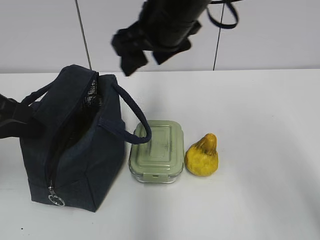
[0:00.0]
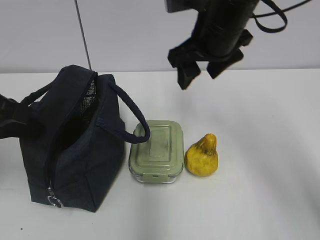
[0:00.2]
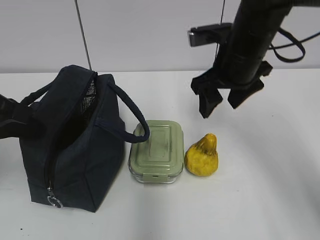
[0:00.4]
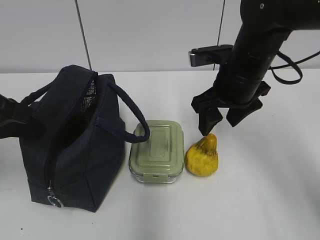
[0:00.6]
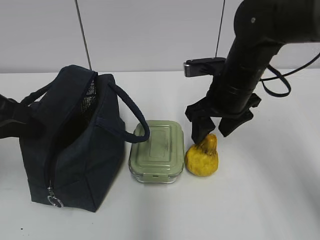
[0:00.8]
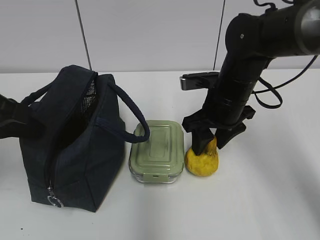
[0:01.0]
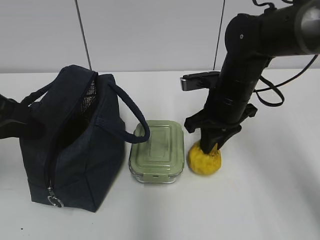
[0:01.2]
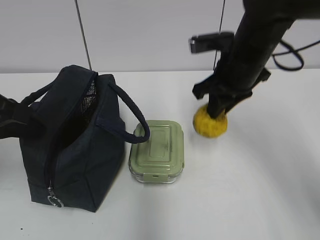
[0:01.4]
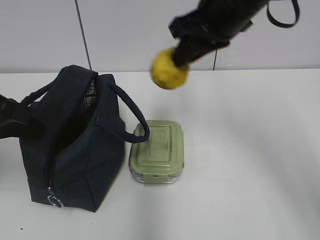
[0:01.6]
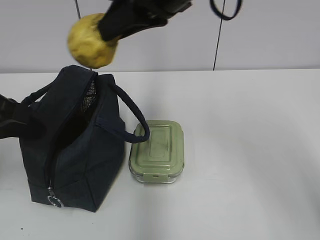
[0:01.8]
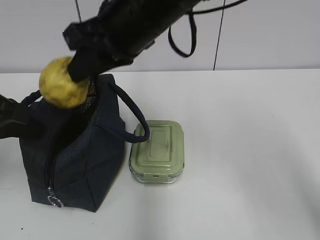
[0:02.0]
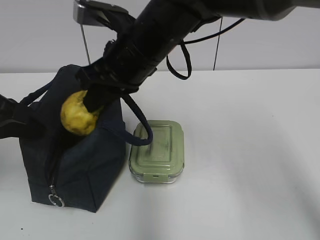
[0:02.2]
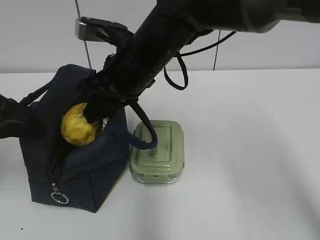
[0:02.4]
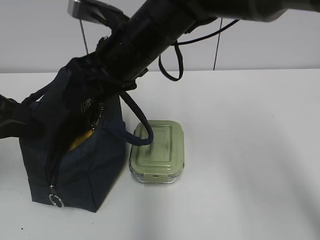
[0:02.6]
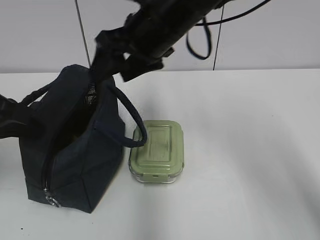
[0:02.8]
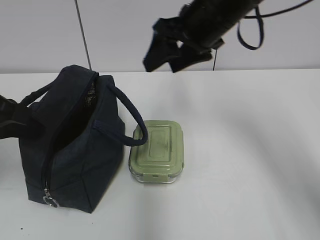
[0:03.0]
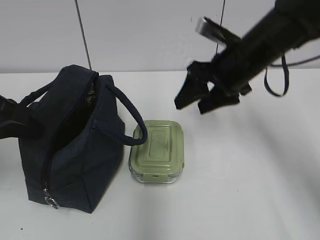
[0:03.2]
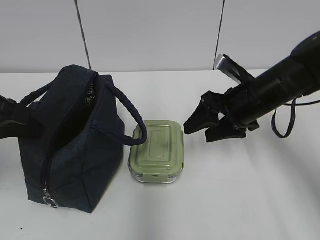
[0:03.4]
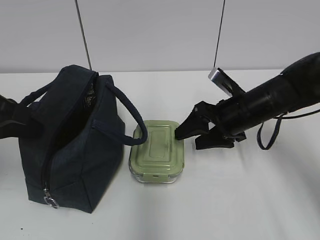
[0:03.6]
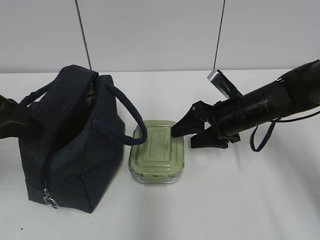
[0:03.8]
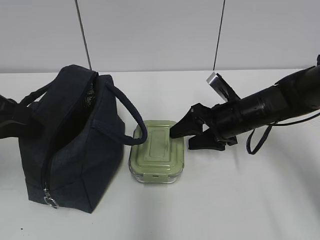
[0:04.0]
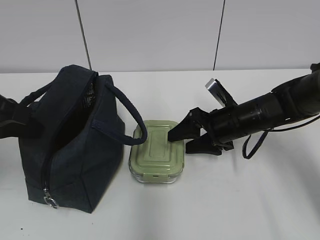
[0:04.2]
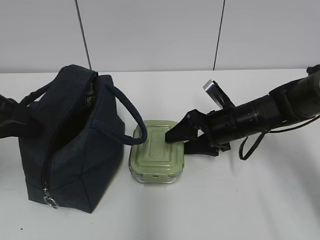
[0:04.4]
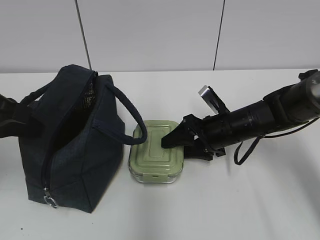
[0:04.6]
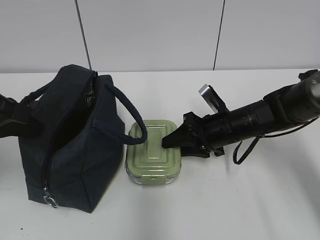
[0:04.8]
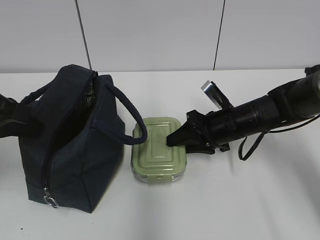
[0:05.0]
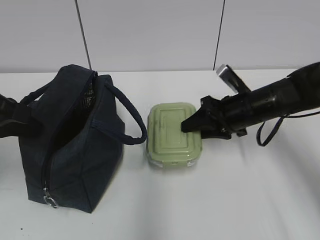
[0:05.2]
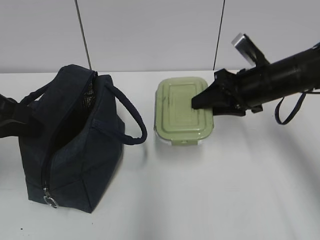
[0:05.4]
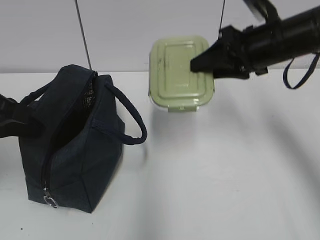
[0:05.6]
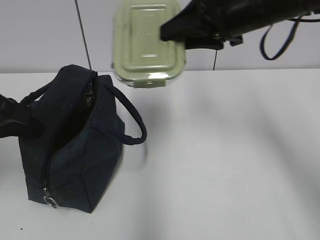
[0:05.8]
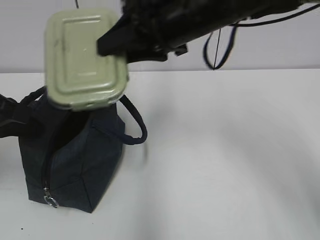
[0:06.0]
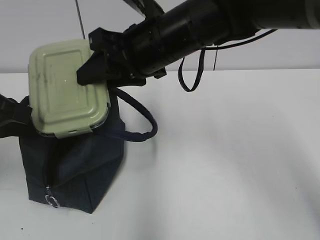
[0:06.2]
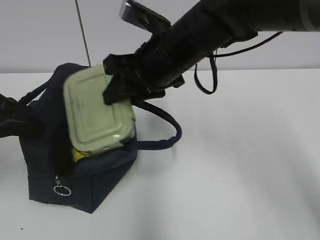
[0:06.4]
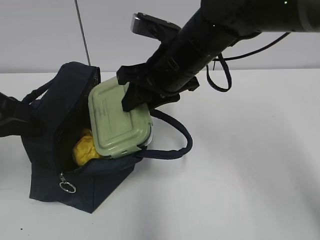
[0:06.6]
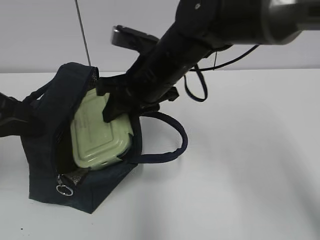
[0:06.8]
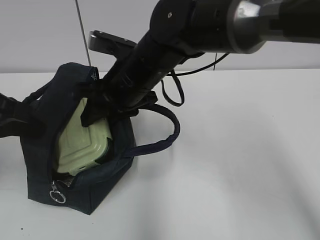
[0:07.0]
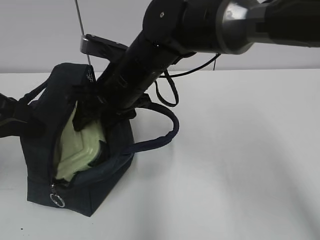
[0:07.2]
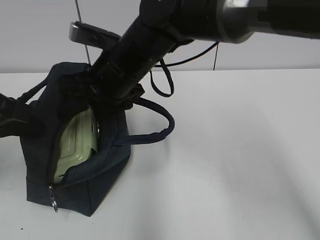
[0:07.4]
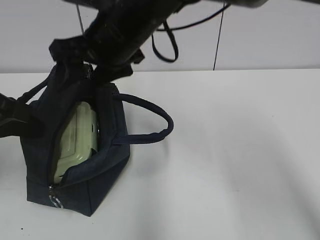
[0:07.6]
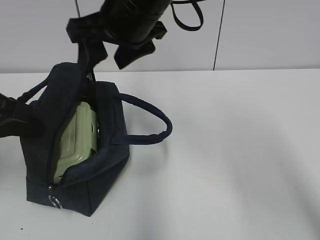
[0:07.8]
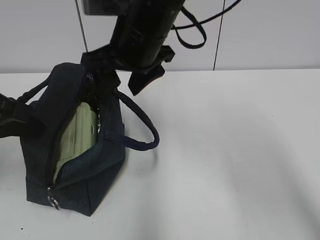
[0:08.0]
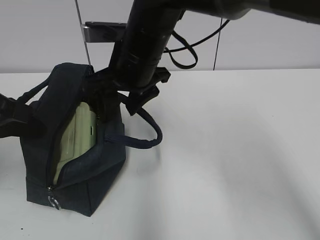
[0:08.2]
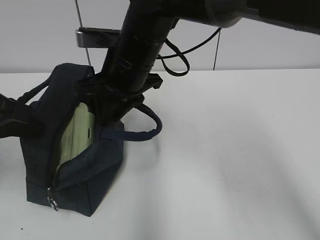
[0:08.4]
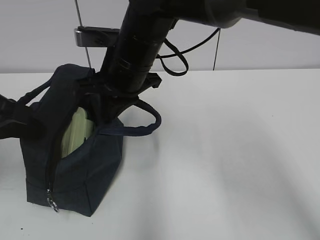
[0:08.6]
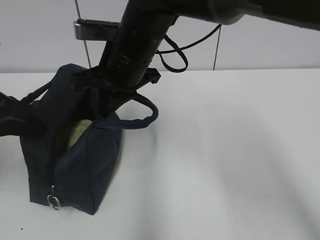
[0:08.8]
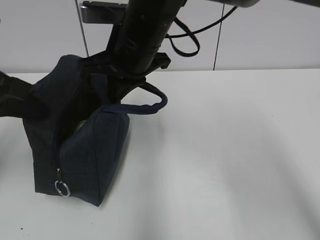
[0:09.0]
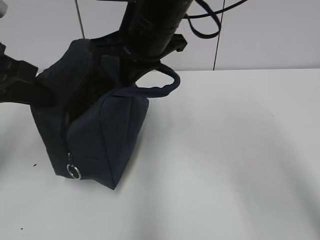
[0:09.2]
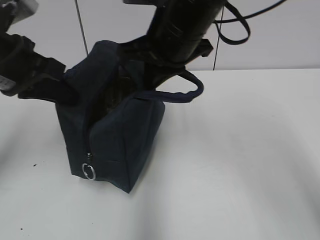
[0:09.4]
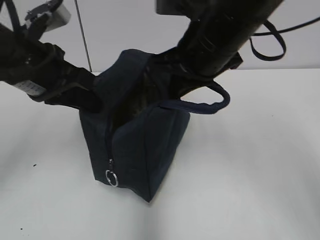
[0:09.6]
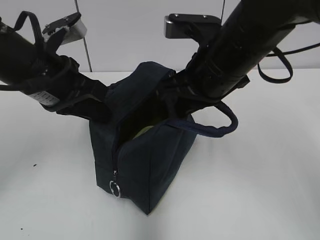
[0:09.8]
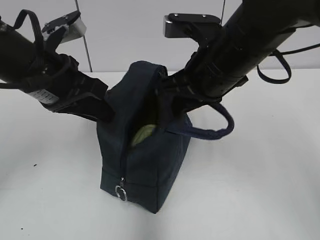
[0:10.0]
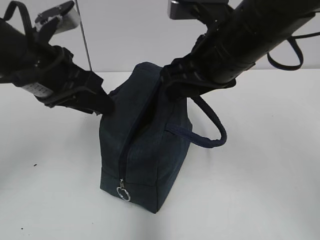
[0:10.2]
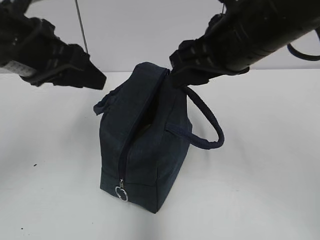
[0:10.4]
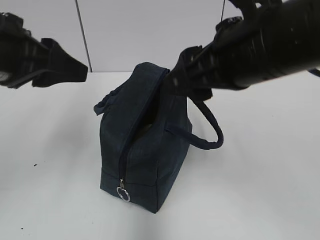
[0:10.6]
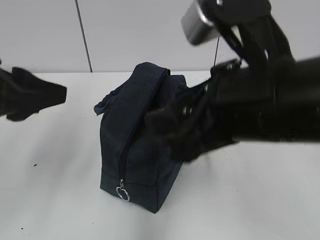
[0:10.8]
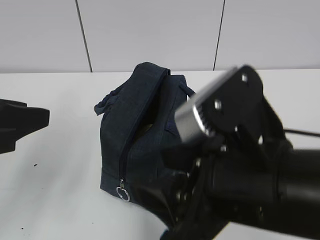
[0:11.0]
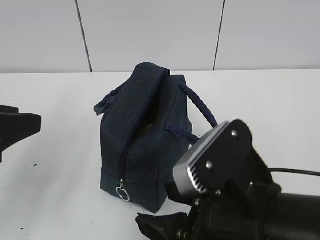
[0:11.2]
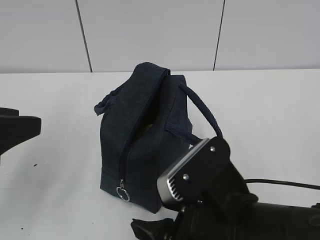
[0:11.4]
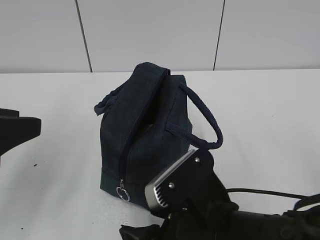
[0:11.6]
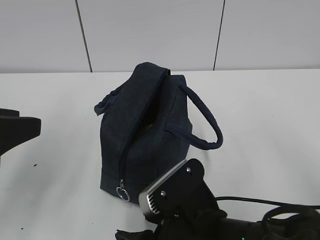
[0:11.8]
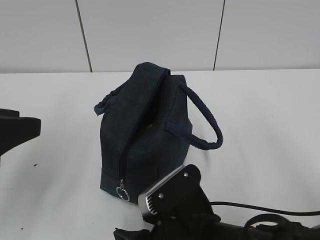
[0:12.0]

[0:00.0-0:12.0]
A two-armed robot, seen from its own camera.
0:00.0 to 0:01.6: The right gripper goes downward and returns, about 15 cm each way, and closes up.
0:01.6 to 0:03.0: The right gripper travels downward by approximately 5 cm, goes to the left and returns, some 10 cm each way, and opens.
0:03.0 to 0:04.4: The right gripper travels downward by approximately 20 cm.
0:04.4 to 0:06.0: The right gripper travels upward and to the left by about 25 cm, and closes.
0:06.0 to 0:07.6: The right gripper is displaced to the left by about 5 cm, reaches roughly 10 cm downward, then returns, and opens up.
0:07.6 to 0:09.0: The right gripper closes its fingers.
0:09.0 to 0:10.4: The right gripper is displaced to the right and backward by roughly 15 cm, and opens. Meanwhile the left gripper moves to the right, roughly 5 cm, and opens.
0:10.4 to 0:12.0: The left gripper is displaced backward and to the left by about 15 cm. Meanwhile the right gripper shifts roughly 25 cm downward and backward.

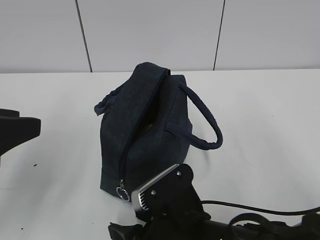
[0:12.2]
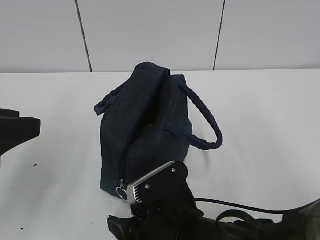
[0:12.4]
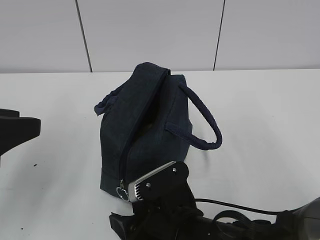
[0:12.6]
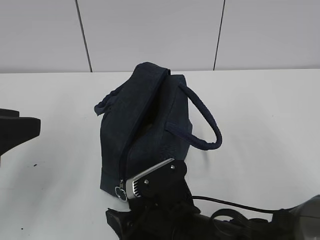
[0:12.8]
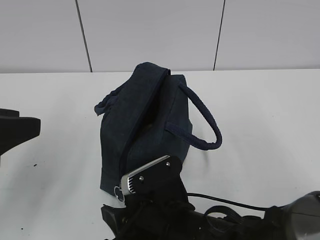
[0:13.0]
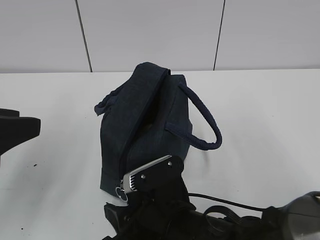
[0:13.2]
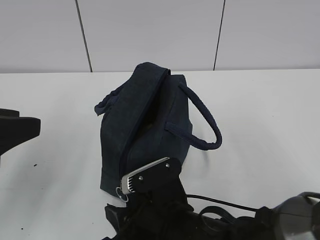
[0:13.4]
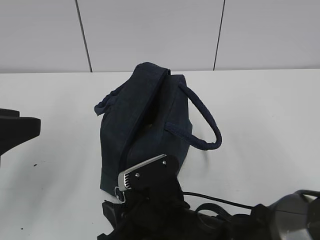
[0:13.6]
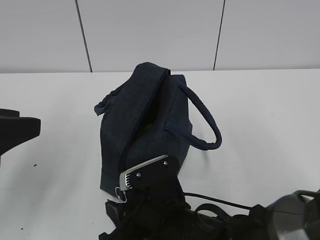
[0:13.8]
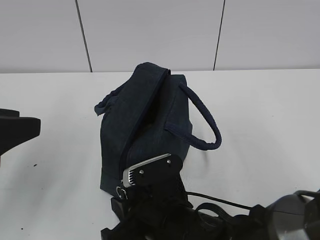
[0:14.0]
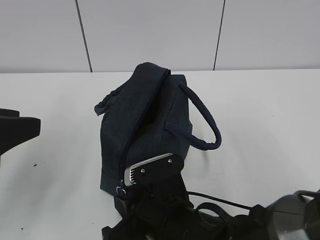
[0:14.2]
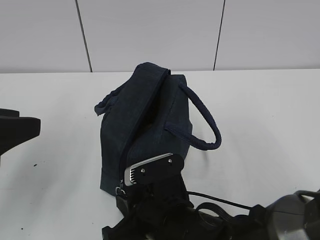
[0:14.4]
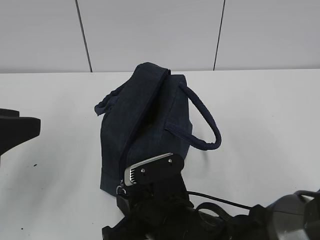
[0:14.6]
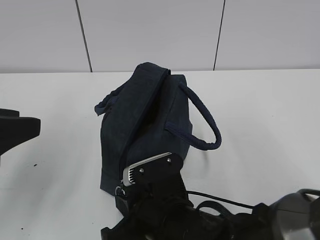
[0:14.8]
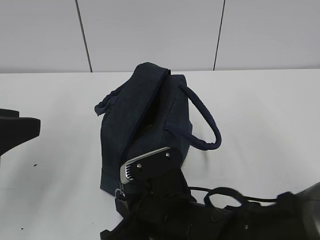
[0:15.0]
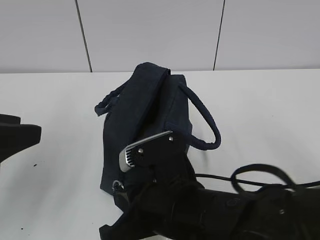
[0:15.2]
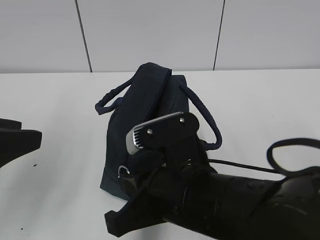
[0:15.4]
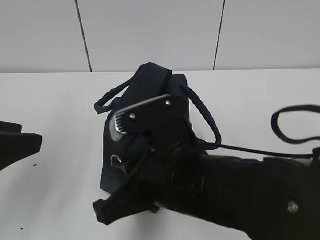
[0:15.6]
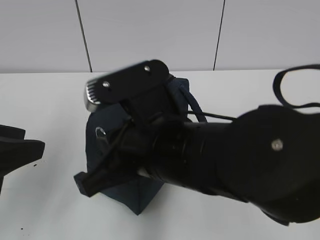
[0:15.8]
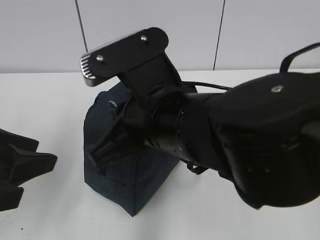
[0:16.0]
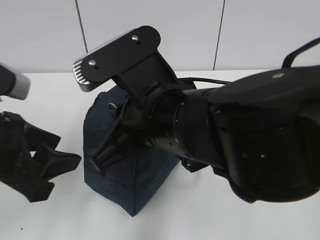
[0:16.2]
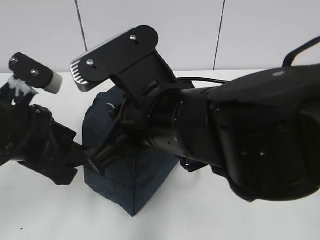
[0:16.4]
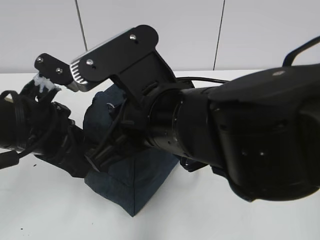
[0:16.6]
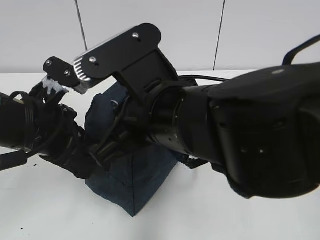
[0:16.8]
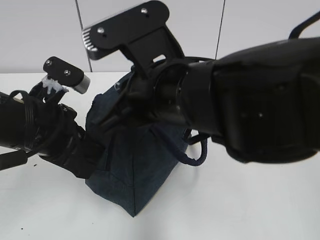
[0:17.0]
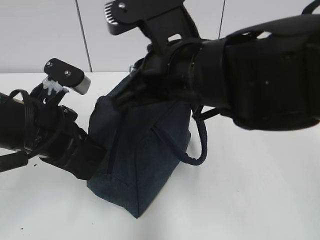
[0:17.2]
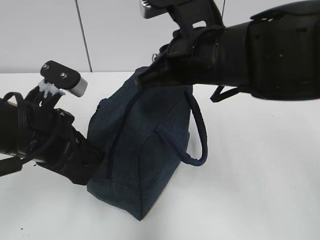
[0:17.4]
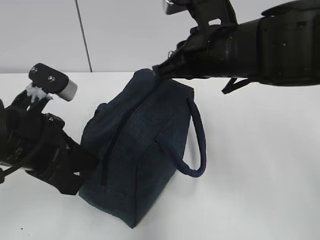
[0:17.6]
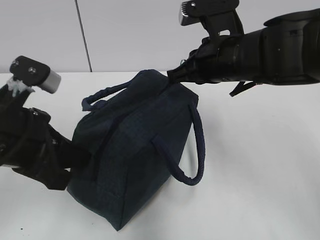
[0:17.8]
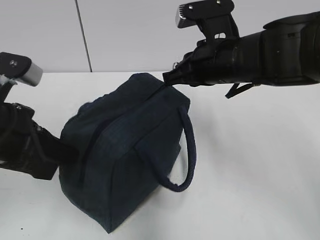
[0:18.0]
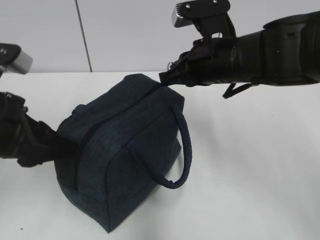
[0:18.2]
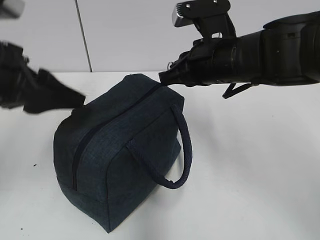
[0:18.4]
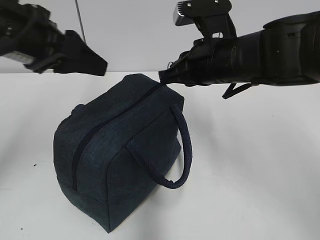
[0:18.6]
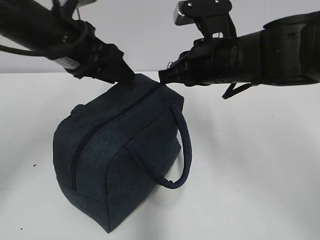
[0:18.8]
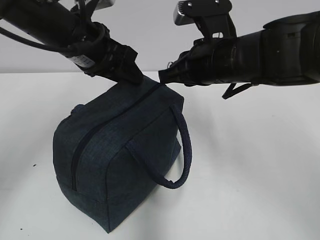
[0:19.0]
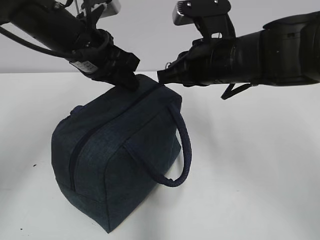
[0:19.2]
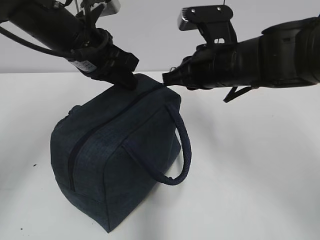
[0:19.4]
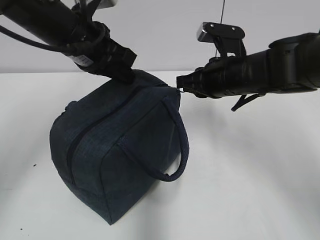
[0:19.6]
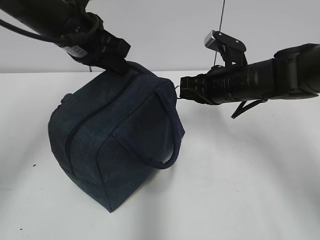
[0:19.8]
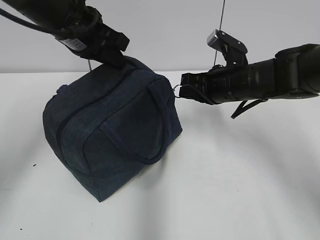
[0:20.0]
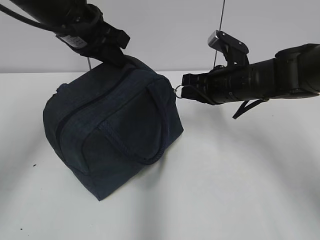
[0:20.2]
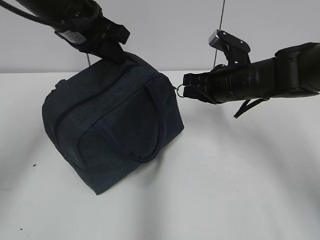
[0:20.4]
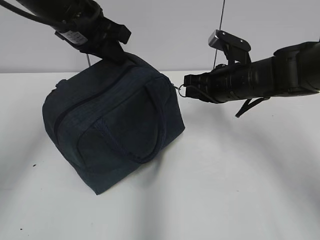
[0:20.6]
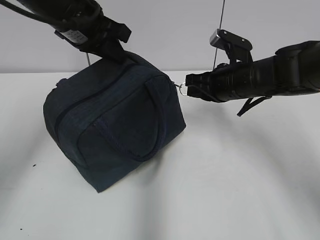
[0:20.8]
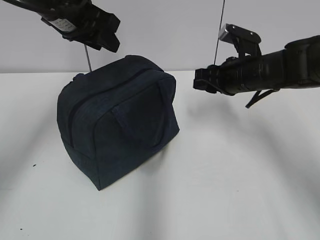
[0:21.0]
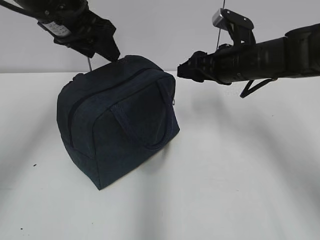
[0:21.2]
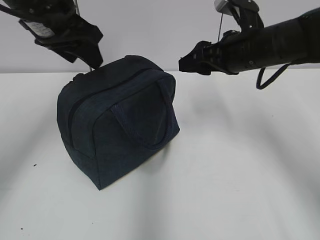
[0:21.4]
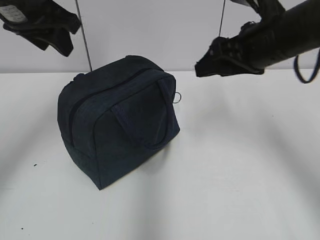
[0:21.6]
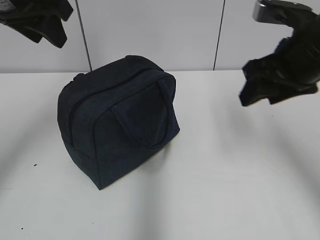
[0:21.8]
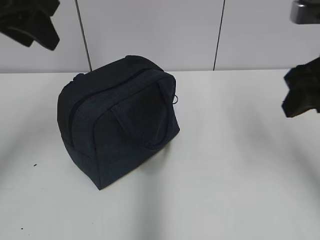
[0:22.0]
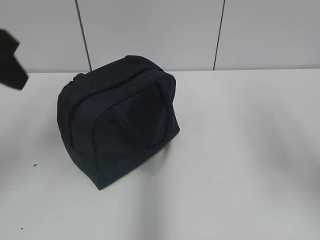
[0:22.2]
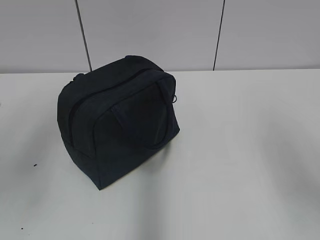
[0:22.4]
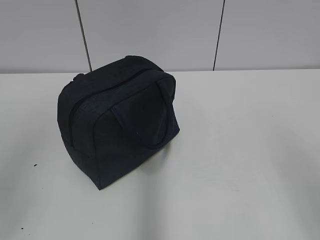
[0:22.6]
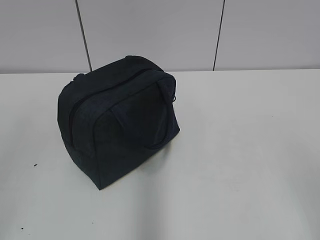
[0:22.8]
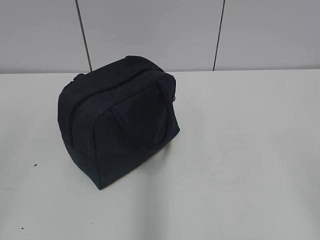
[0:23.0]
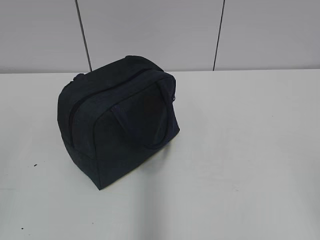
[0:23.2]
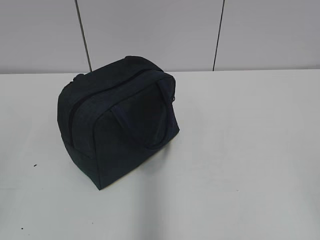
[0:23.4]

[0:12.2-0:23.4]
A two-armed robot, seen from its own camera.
0:12.2 to 0:13.8: The grippers move only a little.
0:13.8 to 0:15.4: The right gripper is displaced upward by approximately 10 cm, and closes up.
0:15.4 to 0:17.0: The left gripper travels forward, to the right and downward by about 15 cm, and closes; the right gripper travels upward and forward by some 10 cm.
0:17.0 to 0:18.6: The left gripper travels upward and forward by some 10 cm, and opens, while the right gripper heads forward and to the right, covering about 15 cm.
0:18.6 to 0:20.2: The right gripper is displaced downward and to the right by about 10 cm. Meanwhile the left gripper heads forward, covering some 10 cm, and closes its fingers.
0:20.2 to 0:21.8: The right gripper shifts about 15 cm upward, backward and to the right, and opens; the left gripper heads upward, backward and to the left, covering about 10 cm, and opens.
0:21.8 to 0:23.4: The two grippers go approximately 30 cm backward.
